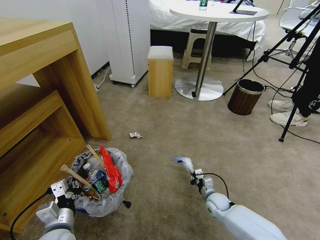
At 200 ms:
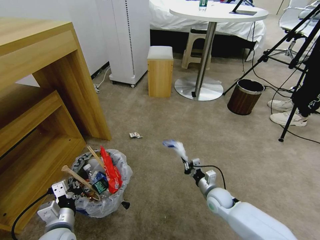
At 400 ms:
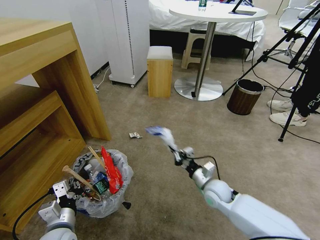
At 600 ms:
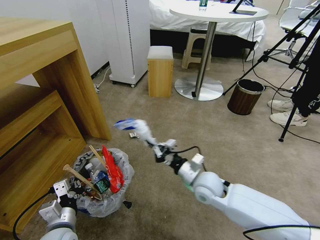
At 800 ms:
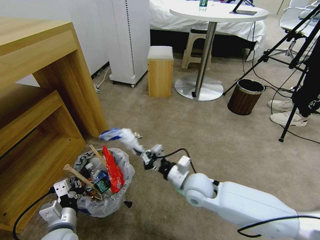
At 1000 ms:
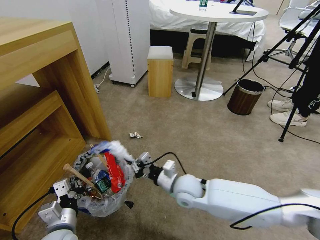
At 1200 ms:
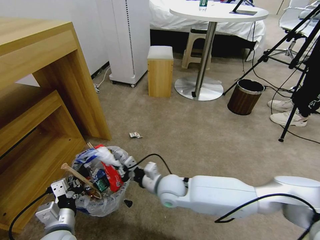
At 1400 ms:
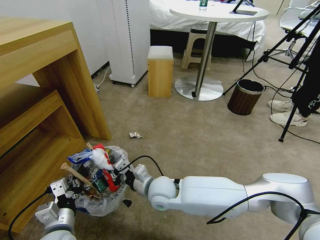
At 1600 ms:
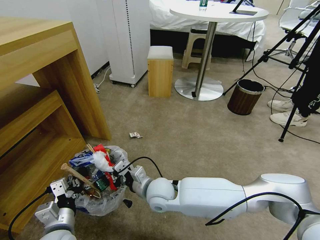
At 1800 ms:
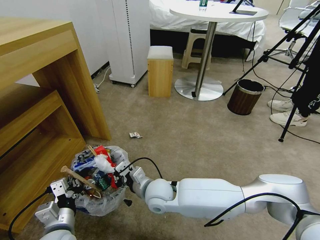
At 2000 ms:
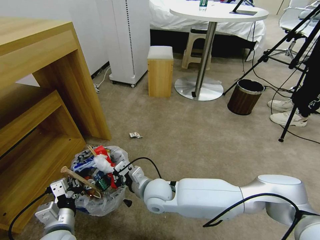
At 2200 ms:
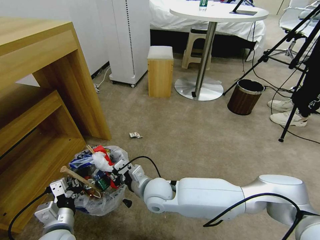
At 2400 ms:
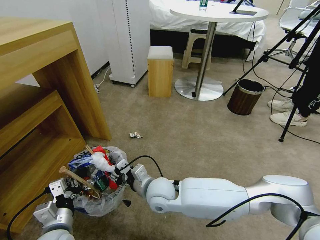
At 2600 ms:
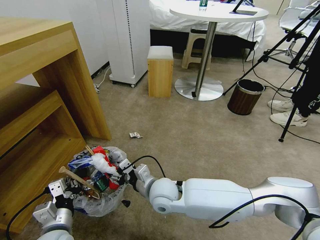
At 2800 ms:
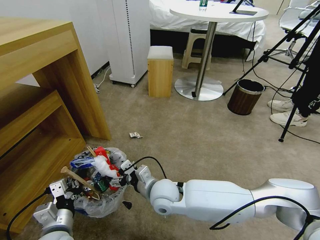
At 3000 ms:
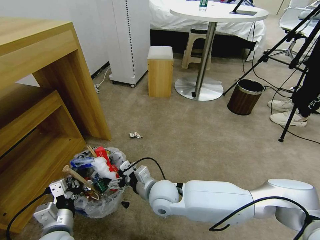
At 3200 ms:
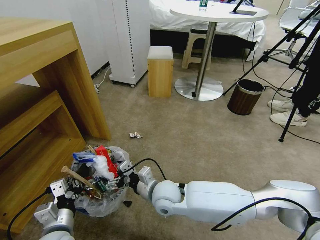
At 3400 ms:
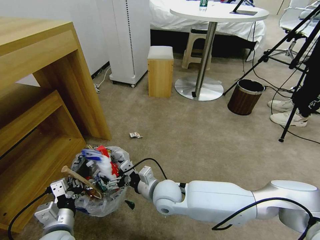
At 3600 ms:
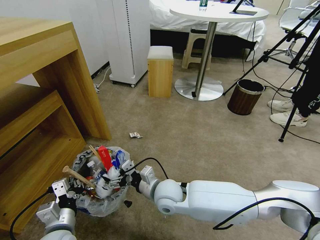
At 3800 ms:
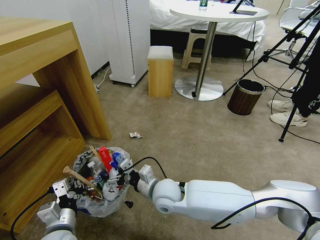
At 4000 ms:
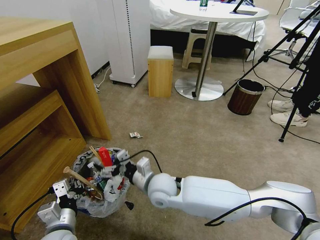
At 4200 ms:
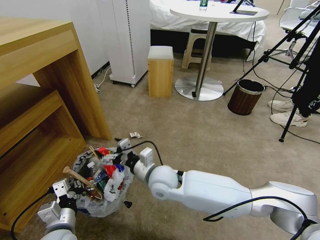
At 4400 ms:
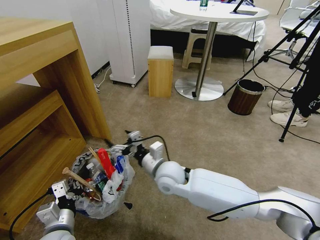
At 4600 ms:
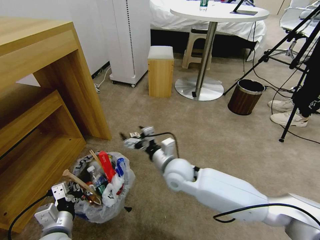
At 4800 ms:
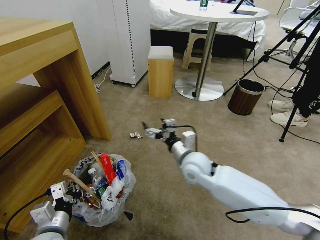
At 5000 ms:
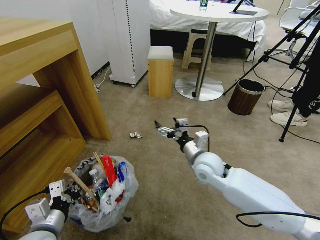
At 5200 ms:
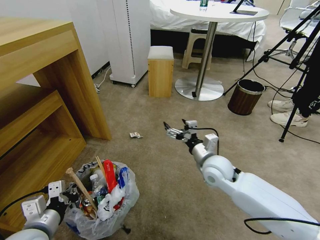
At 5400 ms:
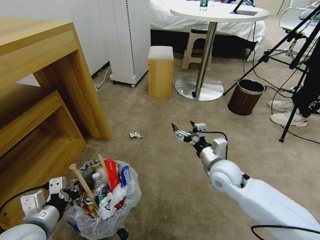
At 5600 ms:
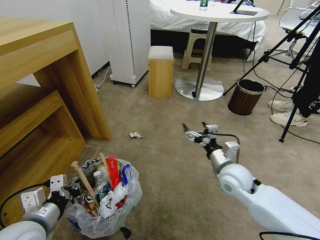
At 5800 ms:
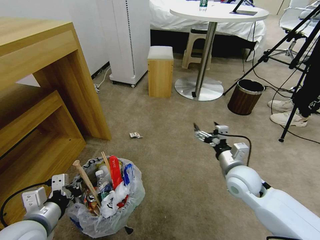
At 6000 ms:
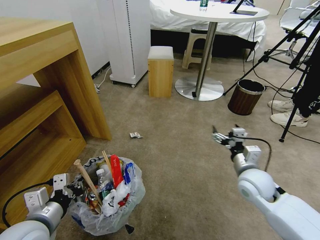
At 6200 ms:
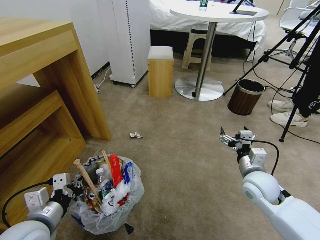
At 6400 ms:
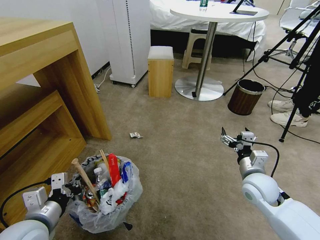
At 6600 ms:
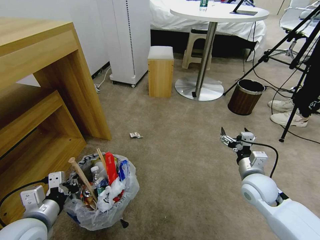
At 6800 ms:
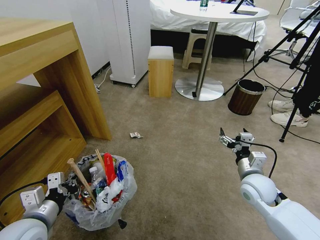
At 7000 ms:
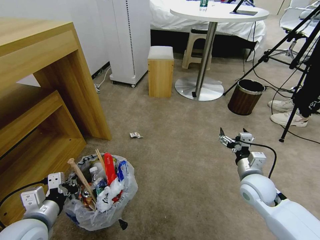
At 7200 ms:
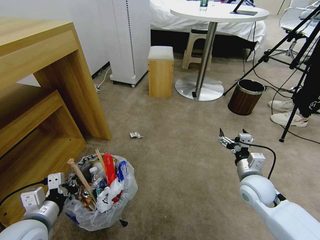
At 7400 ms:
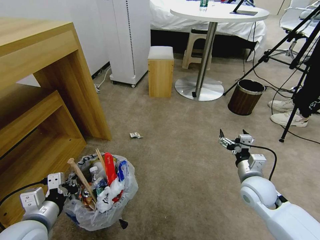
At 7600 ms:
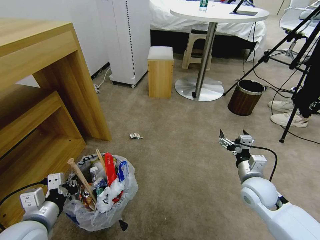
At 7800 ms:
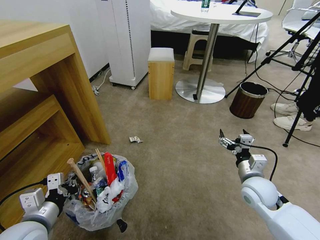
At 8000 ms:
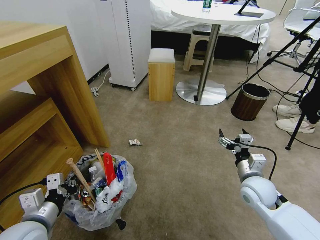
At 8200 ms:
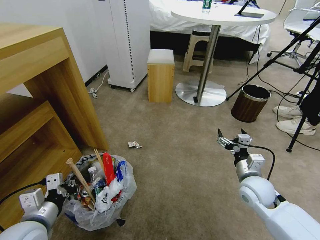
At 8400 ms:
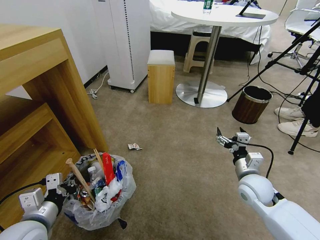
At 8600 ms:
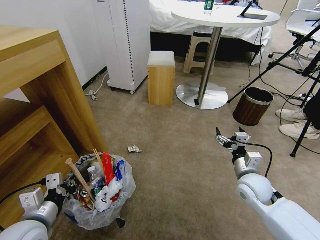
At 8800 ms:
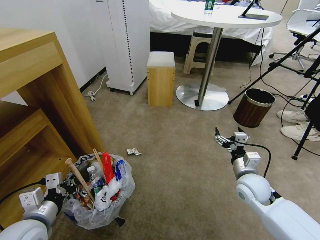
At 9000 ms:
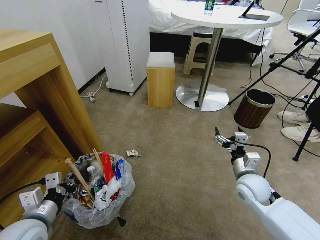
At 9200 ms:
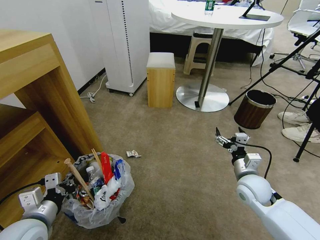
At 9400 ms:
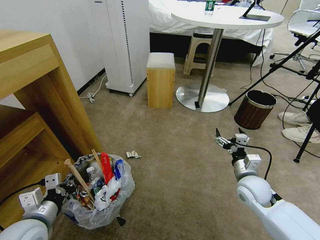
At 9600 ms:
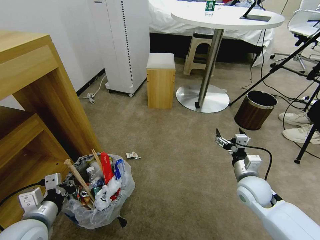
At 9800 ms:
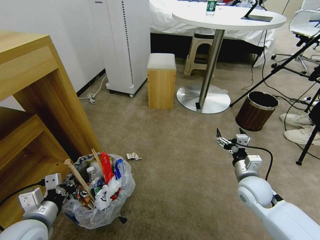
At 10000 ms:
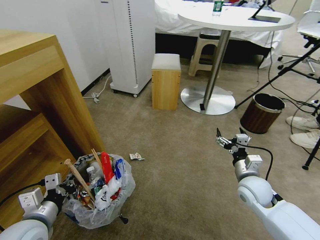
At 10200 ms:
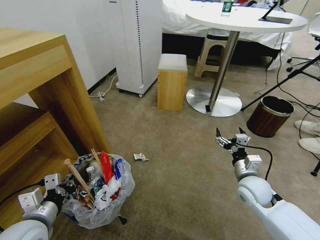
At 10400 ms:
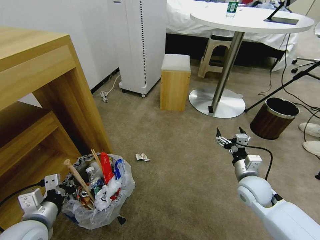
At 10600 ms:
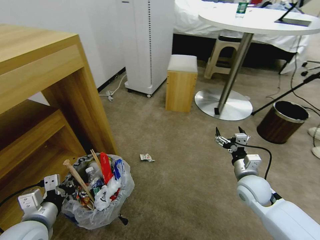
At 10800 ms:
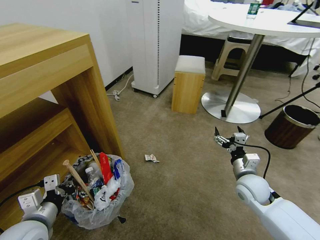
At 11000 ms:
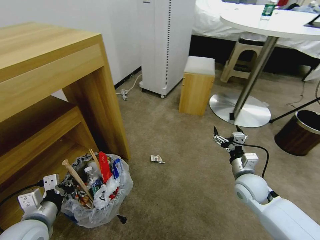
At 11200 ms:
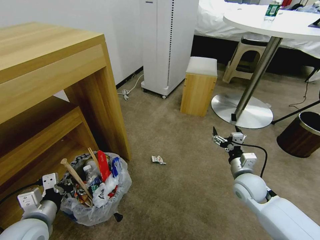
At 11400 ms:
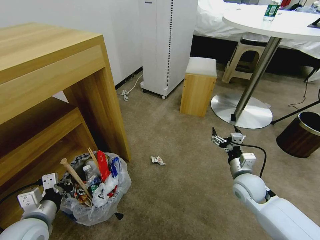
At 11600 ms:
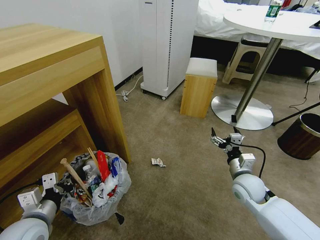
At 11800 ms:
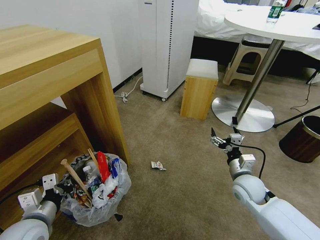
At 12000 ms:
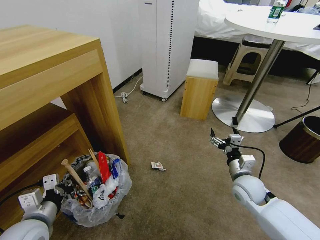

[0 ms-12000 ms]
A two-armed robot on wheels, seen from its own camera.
Task of the whole recording: Pick up the trash bin and place the garbage on the floor into it.
0 ms to 1600 ms: The right gripper heads to the left and upward, covering roughly 30 cm.
1600 ms to 3000 ms: The right gripper opens up.
3000 ms to 4400 ms: The right gripper changes place by approximately 5 cm.
4400 ms to 6000 ms: The left gripper heads upward, covering about 10 cm, while the right gripper travels to the right by roughly 25 cm.
6000 ms to 7600 ms: The grippers move only a little.

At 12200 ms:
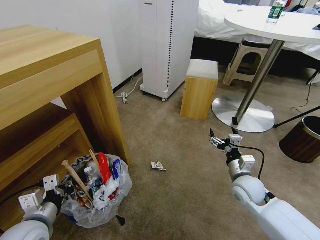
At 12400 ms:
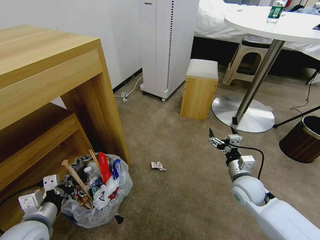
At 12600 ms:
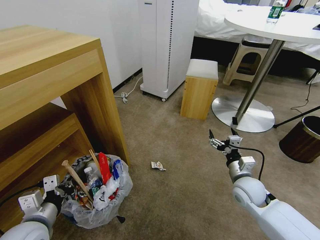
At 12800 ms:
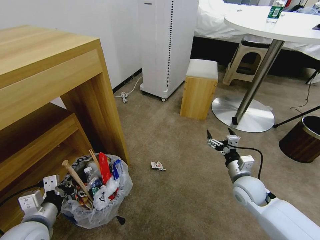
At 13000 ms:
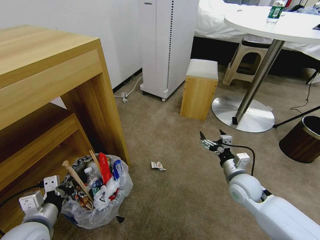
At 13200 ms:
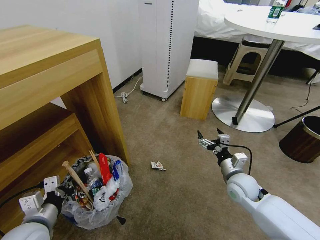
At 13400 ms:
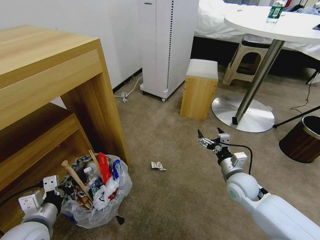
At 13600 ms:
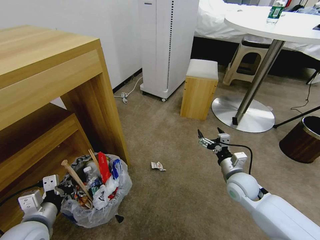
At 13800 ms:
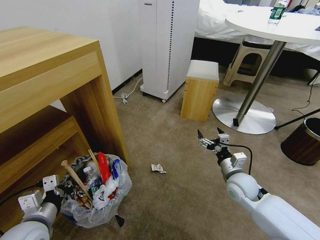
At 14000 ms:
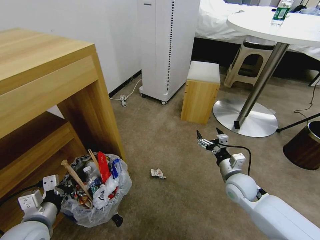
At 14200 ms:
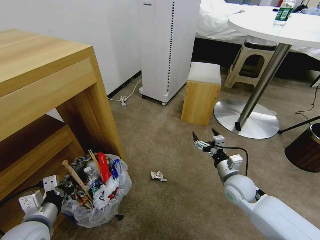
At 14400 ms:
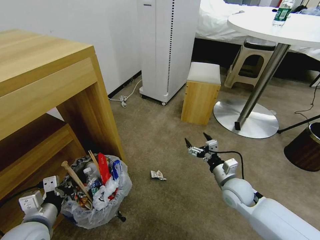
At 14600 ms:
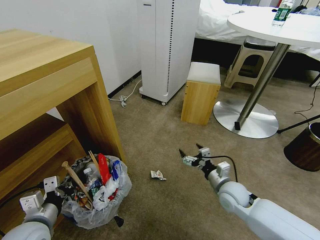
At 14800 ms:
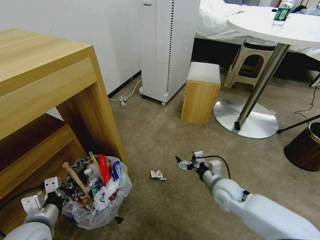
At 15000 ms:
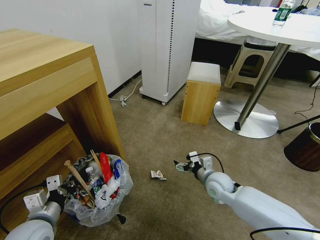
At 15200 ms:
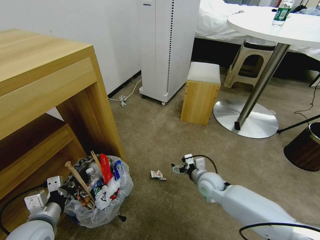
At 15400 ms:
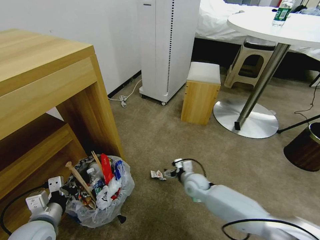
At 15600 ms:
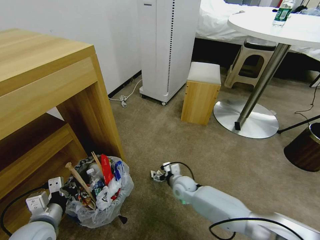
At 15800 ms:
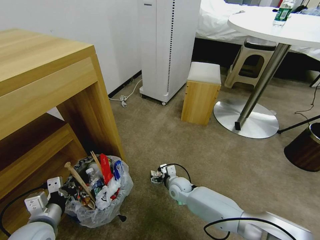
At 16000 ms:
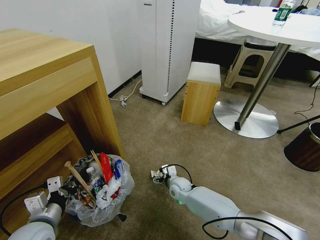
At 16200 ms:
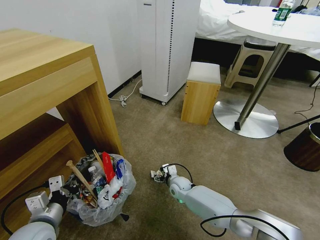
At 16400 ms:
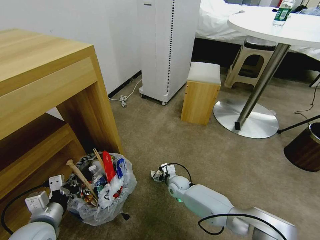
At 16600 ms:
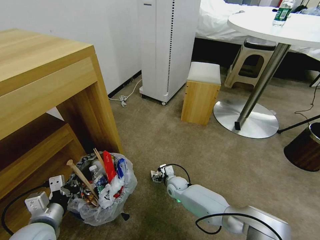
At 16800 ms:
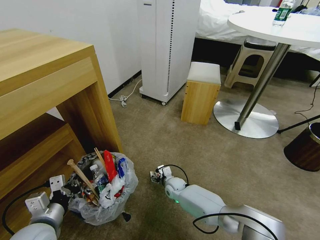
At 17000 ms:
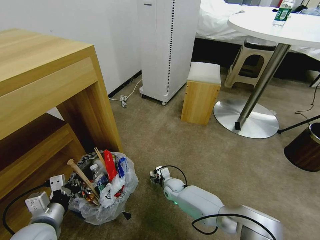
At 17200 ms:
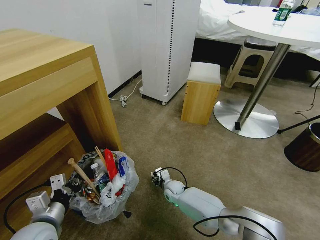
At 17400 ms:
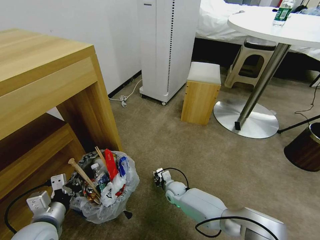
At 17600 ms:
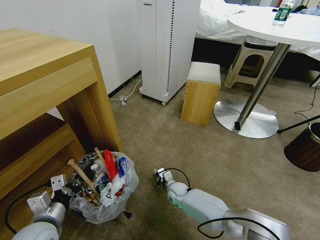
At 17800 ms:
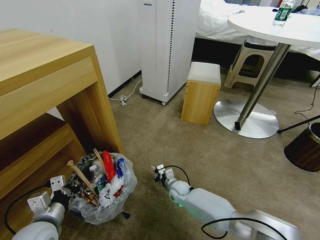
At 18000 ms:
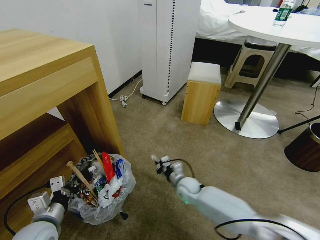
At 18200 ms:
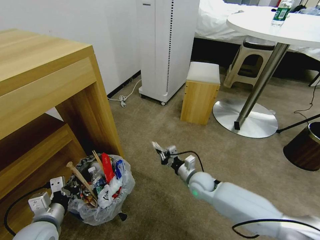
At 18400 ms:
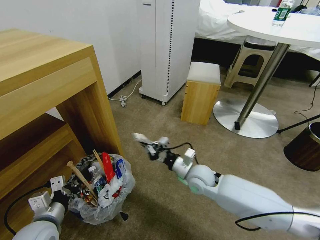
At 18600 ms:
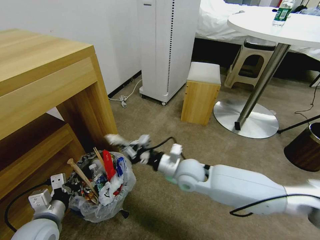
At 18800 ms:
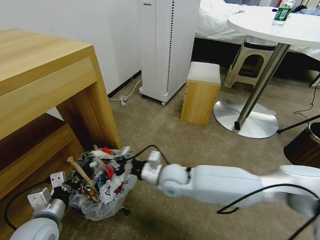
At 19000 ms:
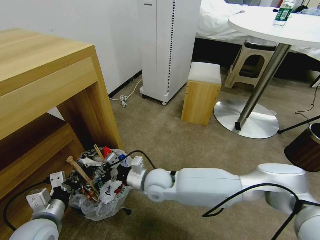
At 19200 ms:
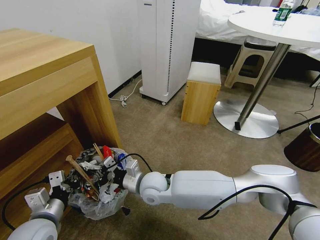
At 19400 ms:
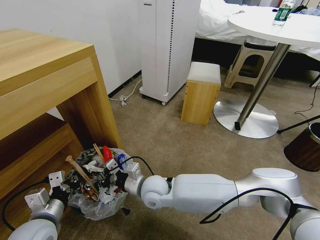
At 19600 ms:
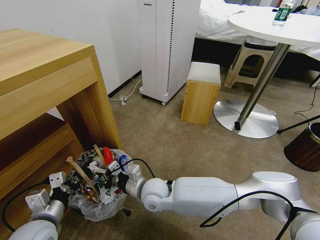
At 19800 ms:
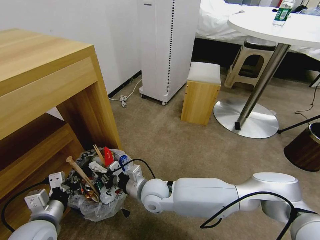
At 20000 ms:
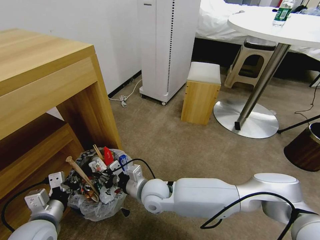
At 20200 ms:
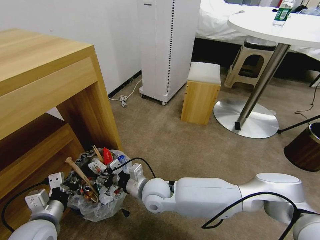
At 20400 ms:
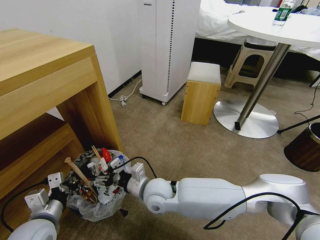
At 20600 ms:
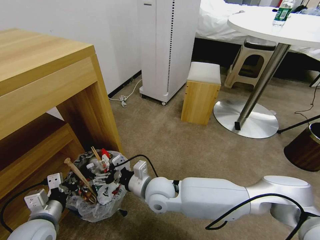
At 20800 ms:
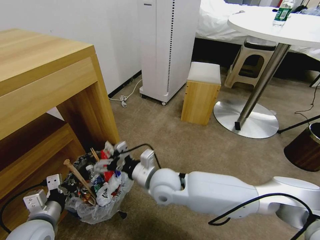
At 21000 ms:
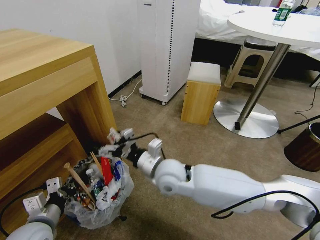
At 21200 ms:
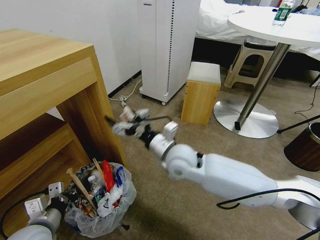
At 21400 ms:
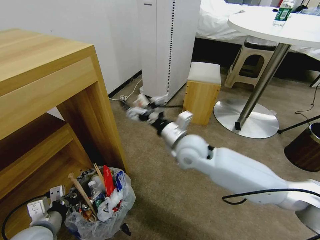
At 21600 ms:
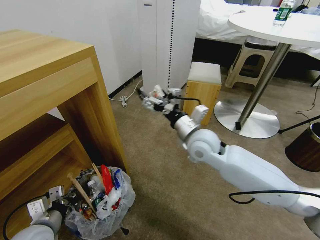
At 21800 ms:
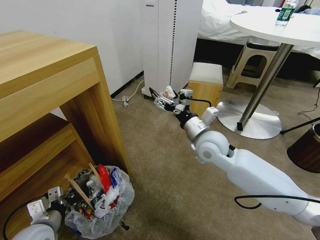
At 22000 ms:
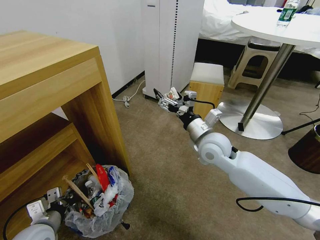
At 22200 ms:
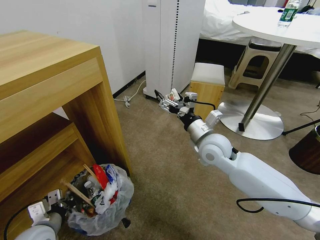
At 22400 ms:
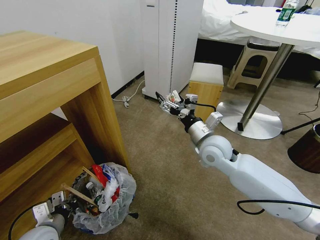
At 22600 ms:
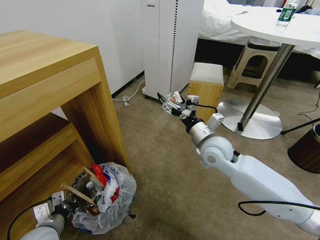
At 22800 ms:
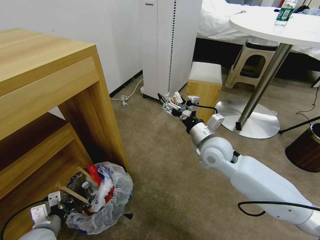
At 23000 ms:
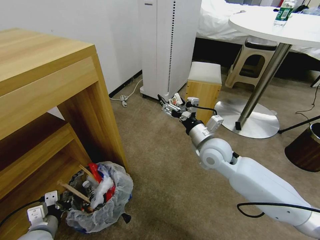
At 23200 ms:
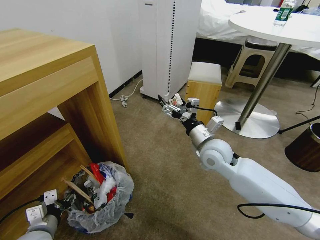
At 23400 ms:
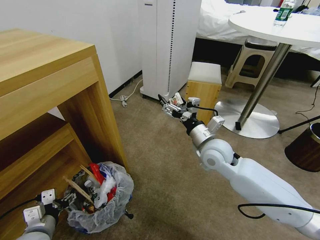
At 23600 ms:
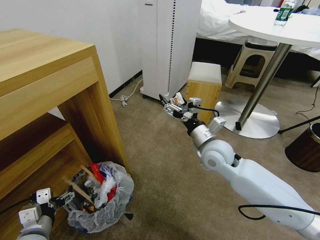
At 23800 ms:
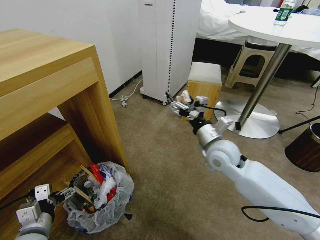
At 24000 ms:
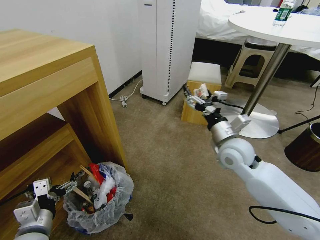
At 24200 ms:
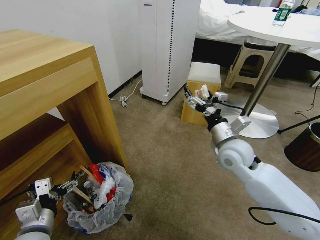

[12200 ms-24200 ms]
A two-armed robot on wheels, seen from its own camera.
Task of the whole recording: Pick up the trash bin and place the garbage on the floor into it.
12200 ms to 13800 ms: The grippers move only a little.
13800 ms to 15200 ms: The right gripper heads to the left, covering some 5 cm.
15200 ms to 16600 ms: The right gripper heads downward and to the left, covering about 20 cm.
16600 ms to 18200 ms: The right gripper travels upward and to the right by roughly 15 cm, and closes.
18200 ms to 19800 ms: The right gripper shifts roughly 20 cm to the left.
19800 ms to 21200 ms: The right gripper is displaced upward and to the right by some 15 cm, and opens.
21200 ms to 22600 ms: The left gripper travels downward by roughly 5 cm. Meanwhile the right gripper travels to the right by some 10 cm.
22600 ms to 24200 ms: The right gripper ends up roughly 5 cm from where it was. Meanwhile the left gripper is displaced upward by approximately 5 cm, and opens.
